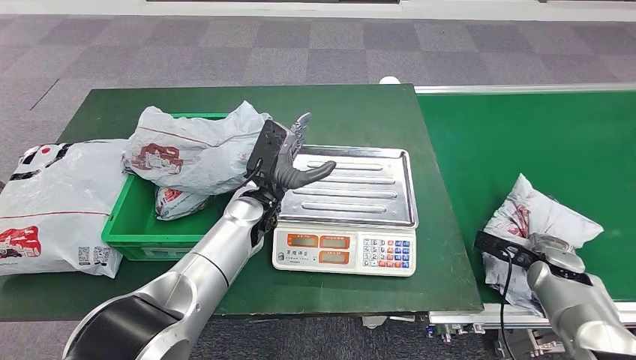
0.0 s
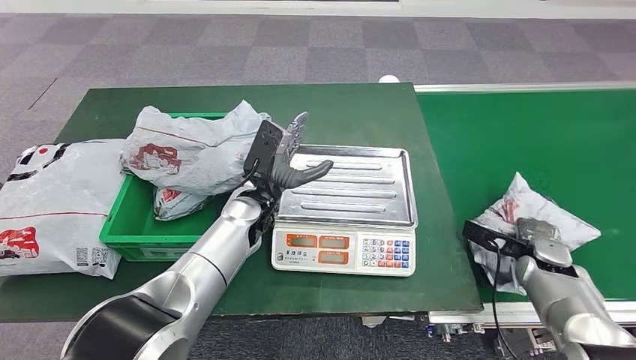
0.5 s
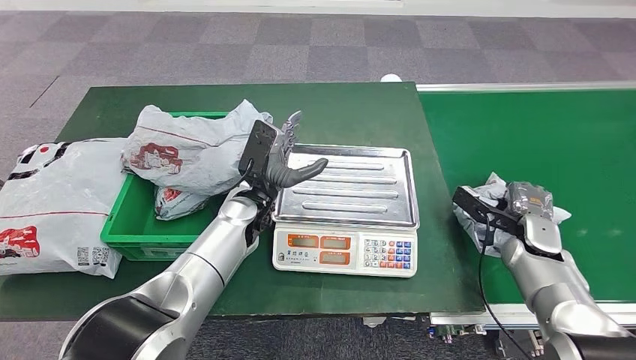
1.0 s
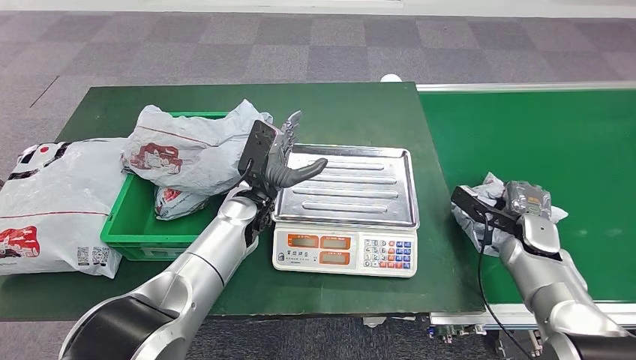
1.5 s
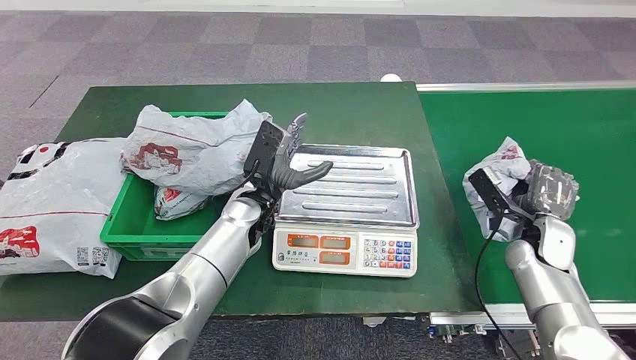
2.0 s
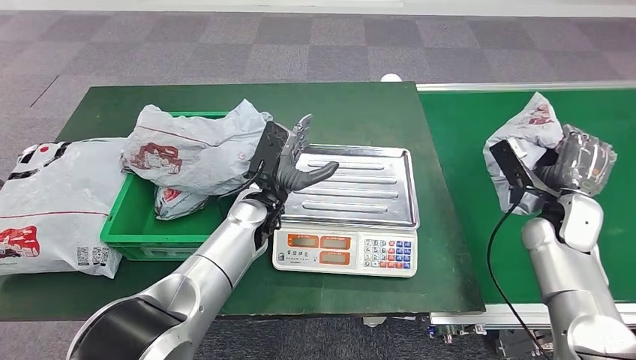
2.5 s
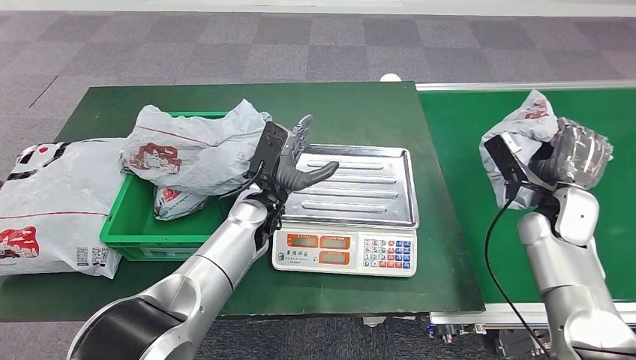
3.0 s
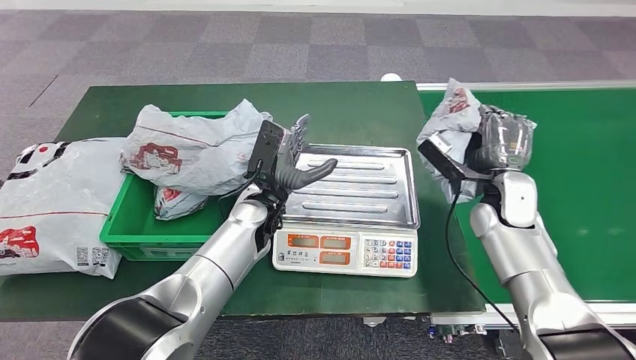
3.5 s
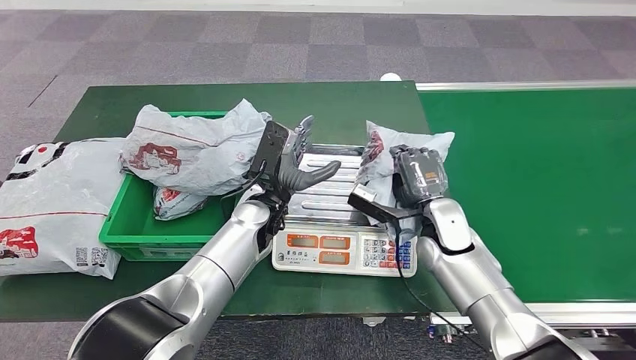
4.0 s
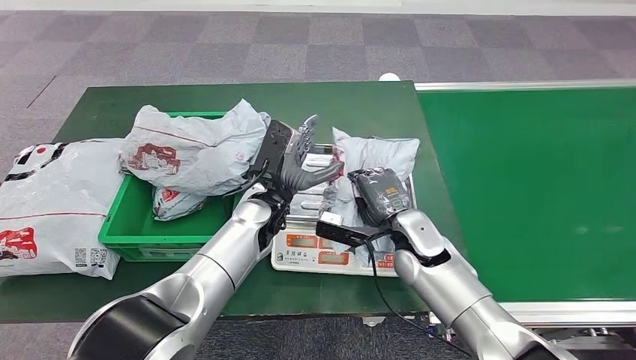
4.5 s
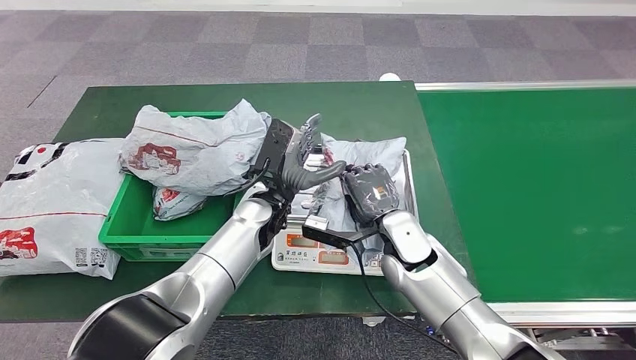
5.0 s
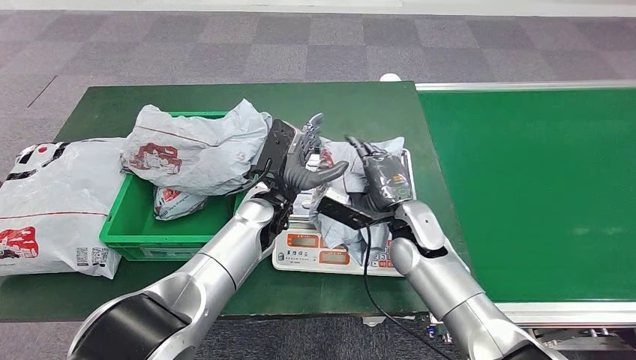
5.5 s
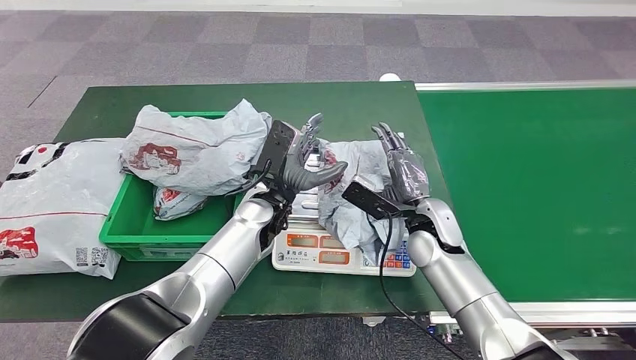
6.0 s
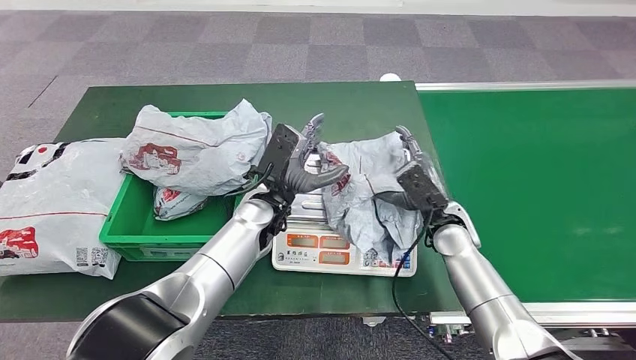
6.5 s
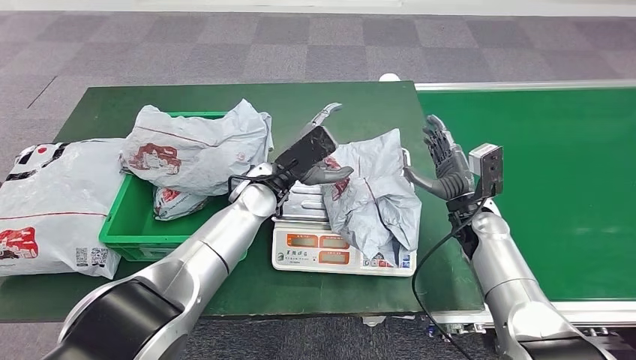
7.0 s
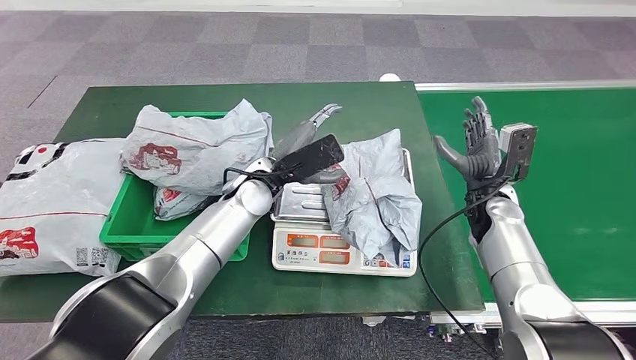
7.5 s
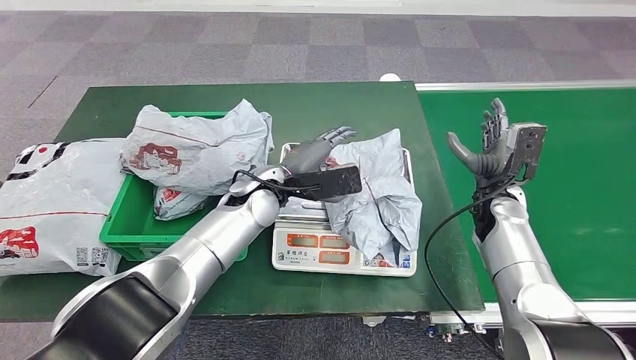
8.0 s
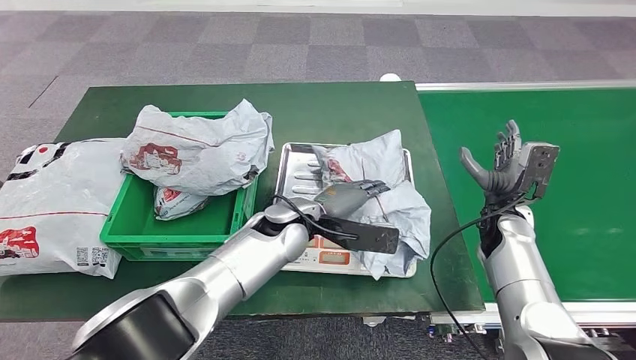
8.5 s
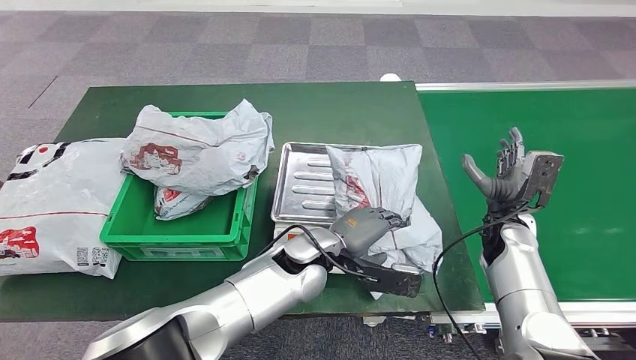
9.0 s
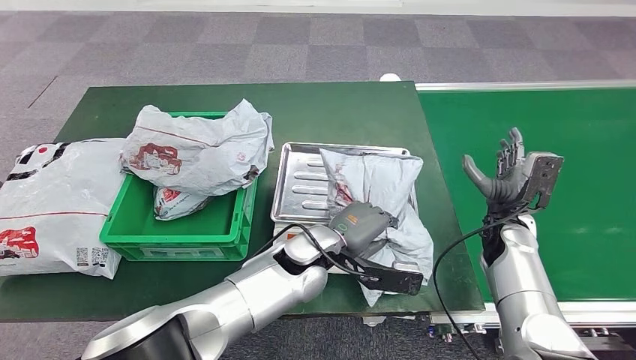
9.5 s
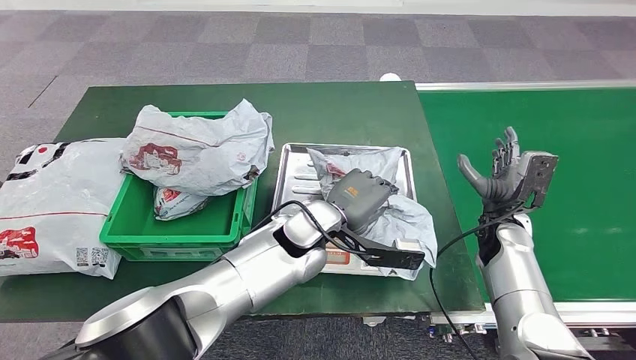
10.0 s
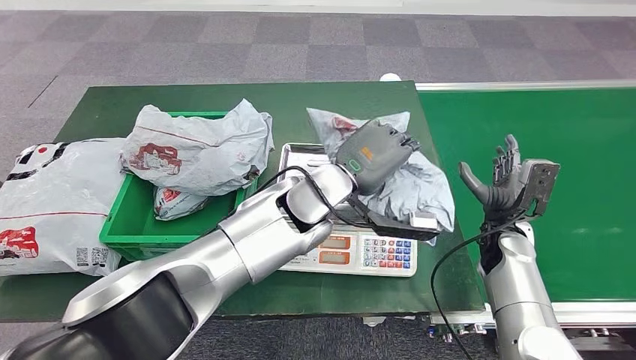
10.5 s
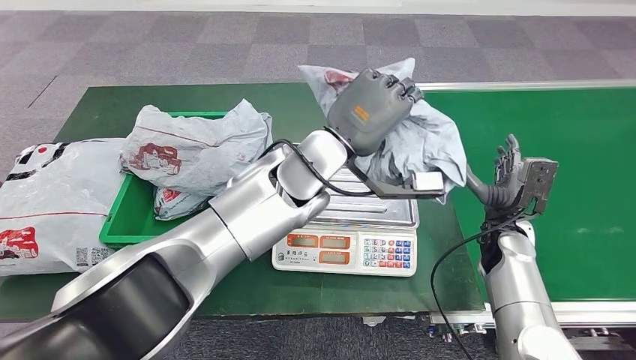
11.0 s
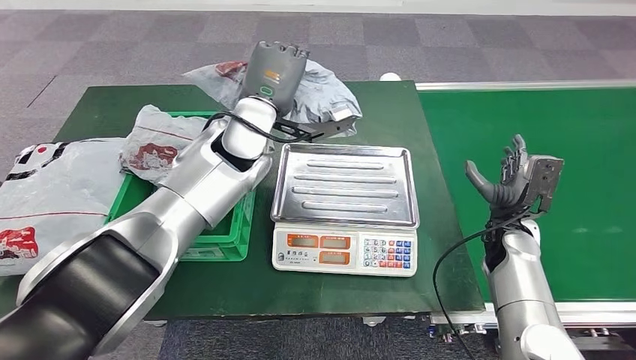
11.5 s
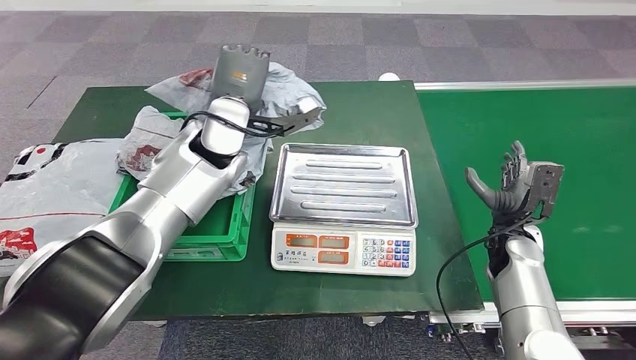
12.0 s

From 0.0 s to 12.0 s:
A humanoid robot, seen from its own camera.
Step, from 0.0 s to 2.5 s: Pick up the parcel from the conveyor belt.
Step, from 3.0 s to 6.0 s: Place the parcel onto the inbound machine.
Step, from 9.5 s to 11.0 s: Pick up the parcel from the inbound machine.
From 0.0 s to 2.0 s: The right hand heads upward and to the left, covering some 10 cm.
From 4.0 s to 6.0 s: The right hand reaches some 10 cm to the left, then returns.

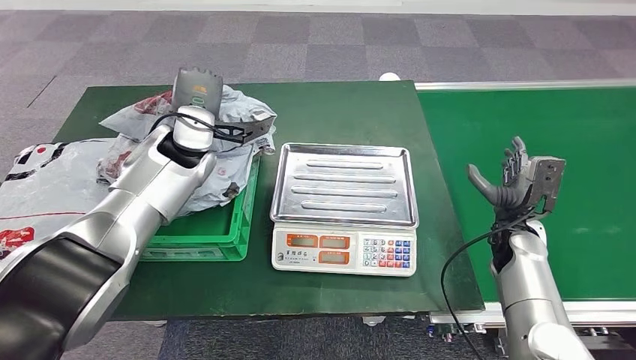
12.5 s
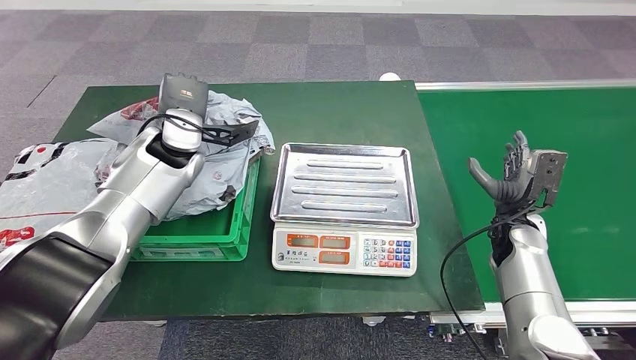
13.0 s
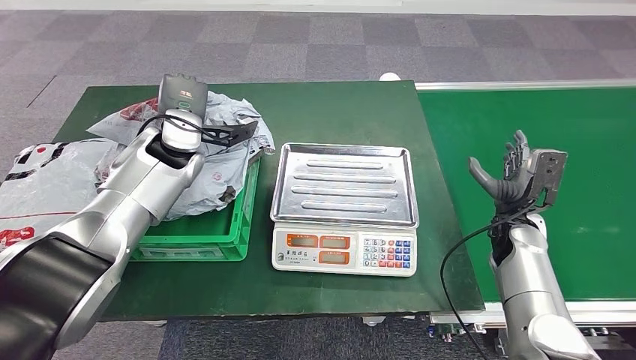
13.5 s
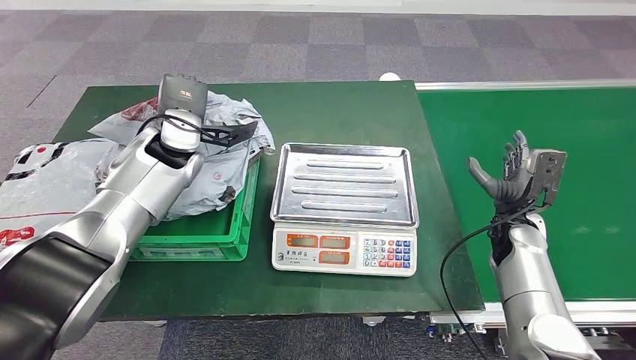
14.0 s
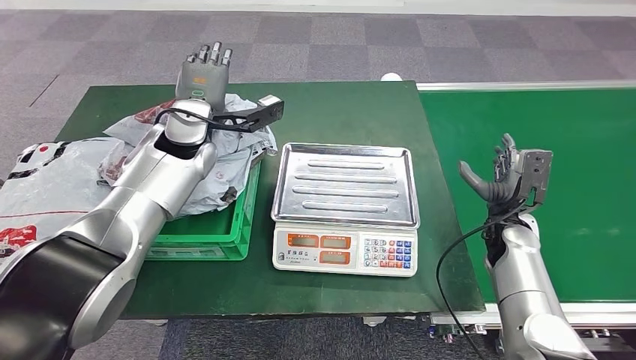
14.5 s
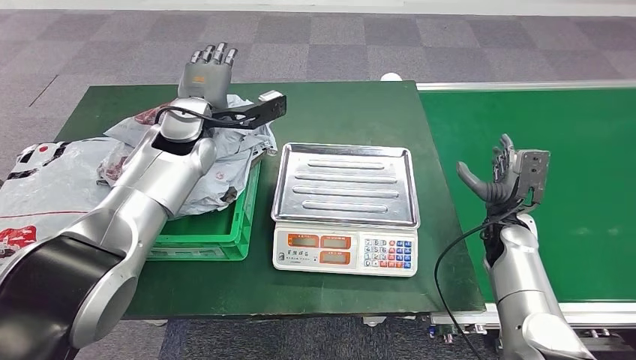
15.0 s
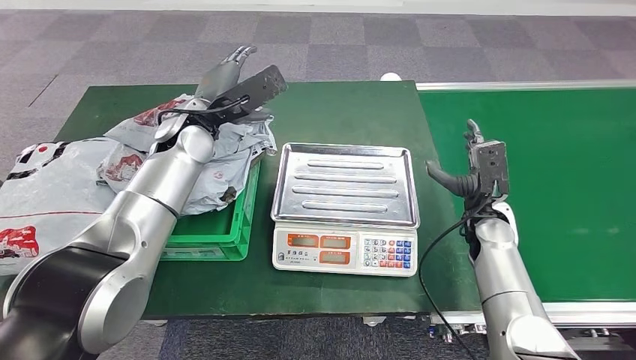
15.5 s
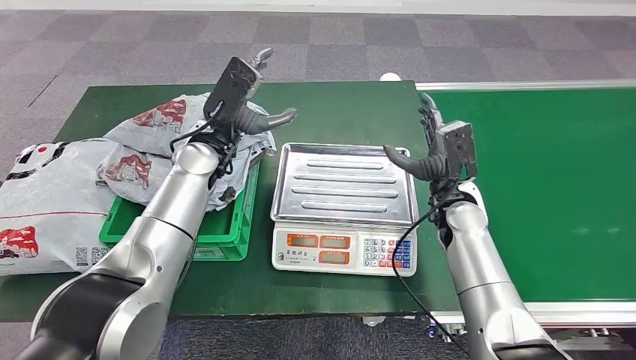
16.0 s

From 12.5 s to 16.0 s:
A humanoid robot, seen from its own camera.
Step, from 12.5 s to 16.0 s: Place the parcel into the delivery box.
From 12.5 s to 14.5 s: The hands stay close to where they were, moving slightly.
